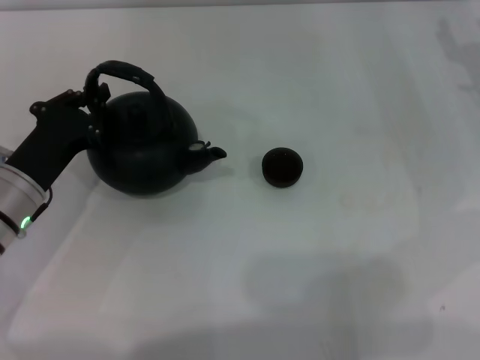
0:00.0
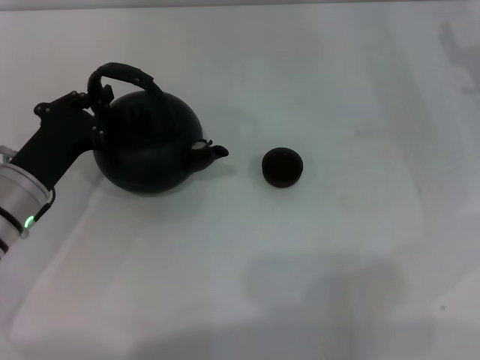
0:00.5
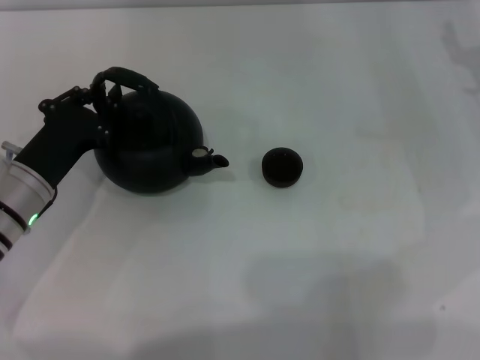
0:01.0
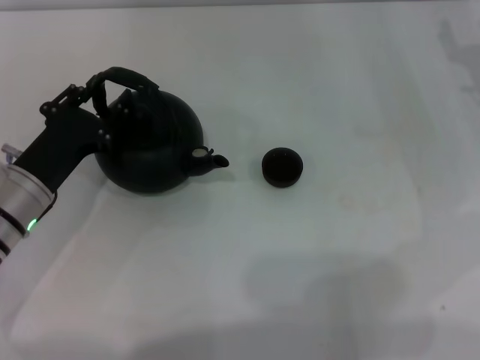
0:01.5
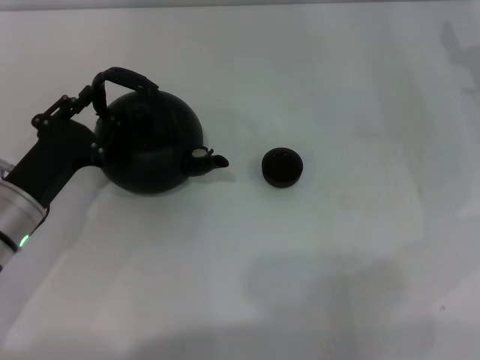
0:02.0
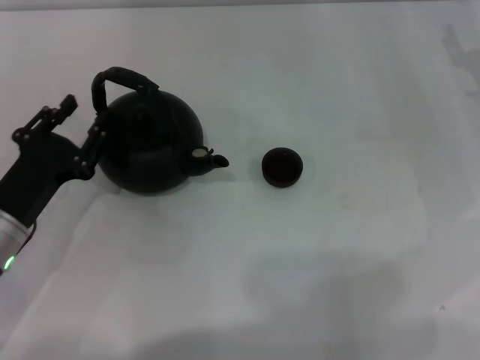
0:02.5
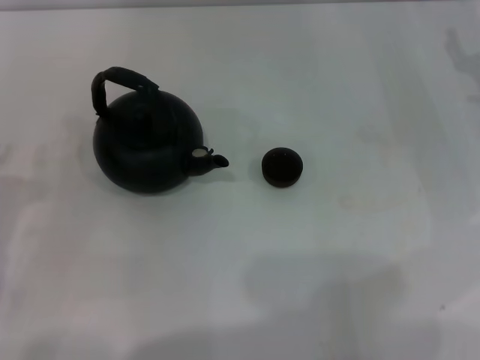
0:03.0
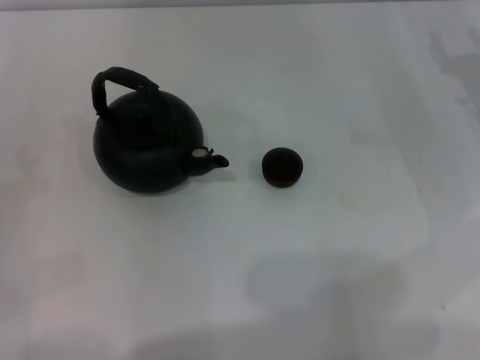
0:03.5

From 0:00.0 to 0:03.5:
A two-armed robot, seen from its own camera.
Task of the whole recording: Grasp the handle of the teapot with one hand and pour tea into the teacup.
Step, from 0:00.0 to 0:02.5: Put down the teapot with the left gripper.
From 0:00.0 to 0:02.0: The left gripper opens.
From 0:02.0 to 0:03.5: The left gripper is displaced to the left and backward by approximately 10 cm.

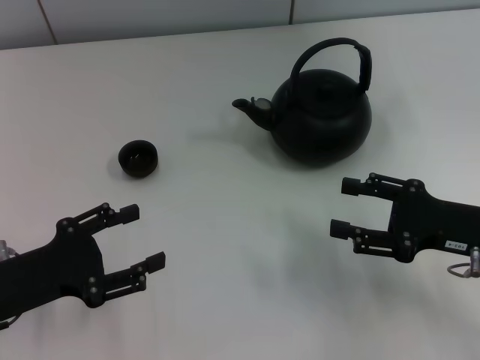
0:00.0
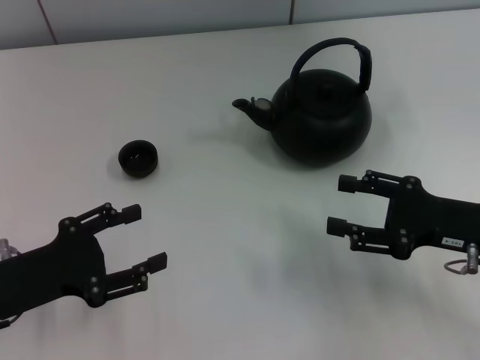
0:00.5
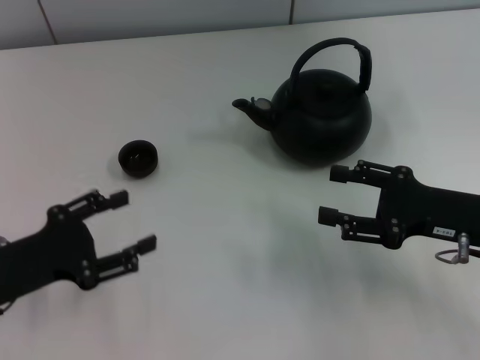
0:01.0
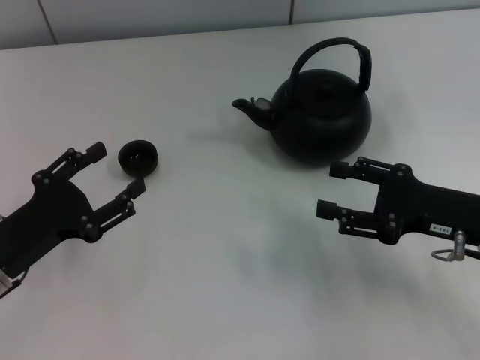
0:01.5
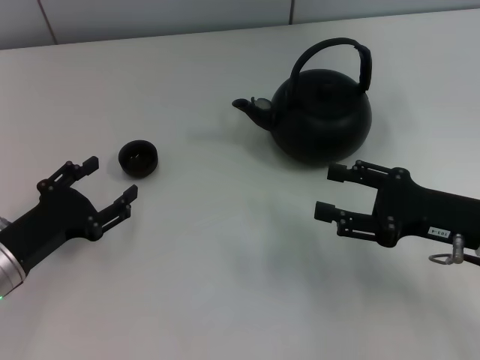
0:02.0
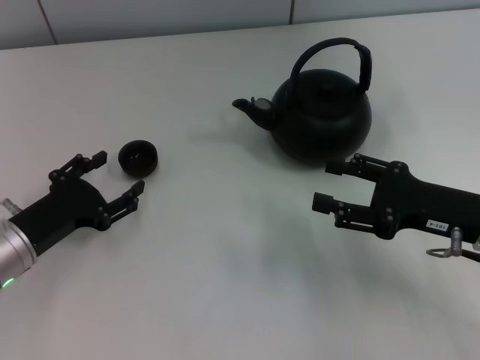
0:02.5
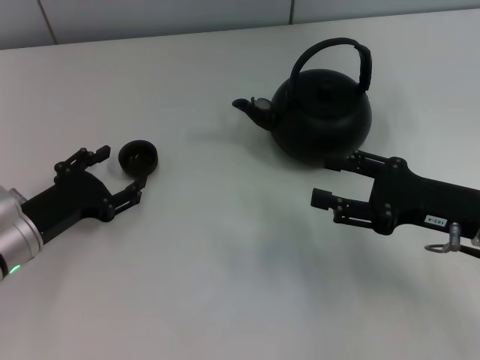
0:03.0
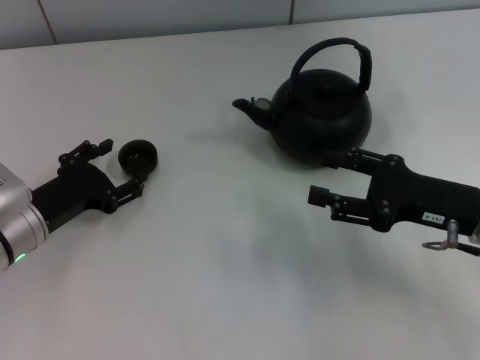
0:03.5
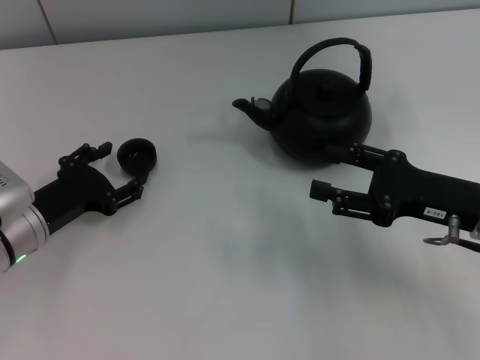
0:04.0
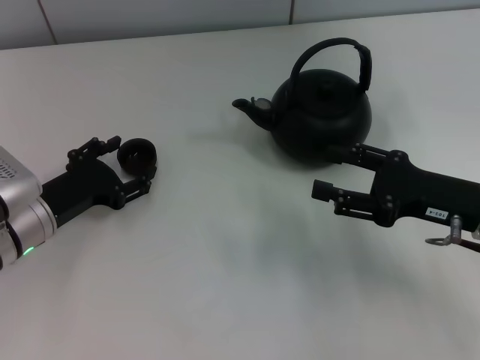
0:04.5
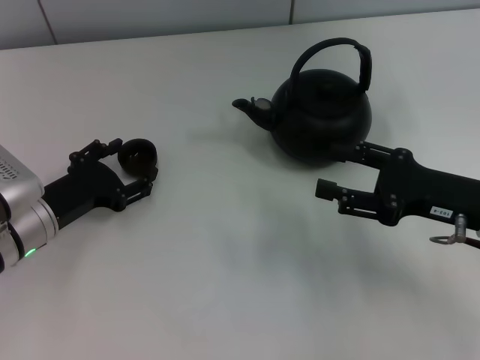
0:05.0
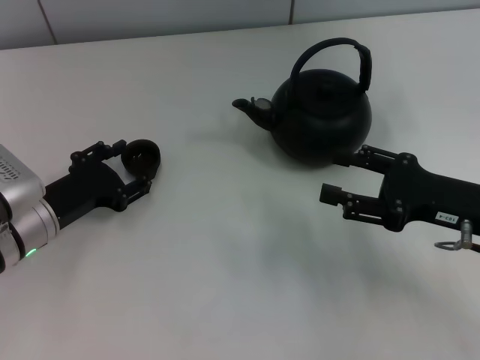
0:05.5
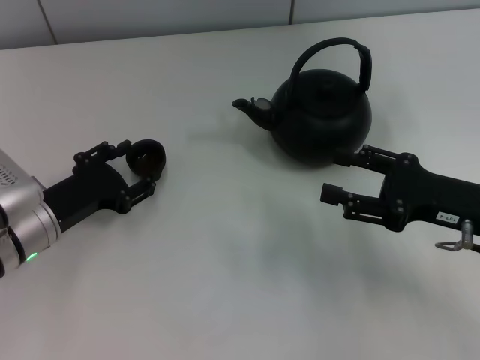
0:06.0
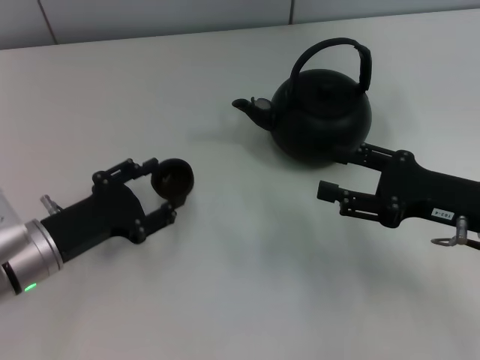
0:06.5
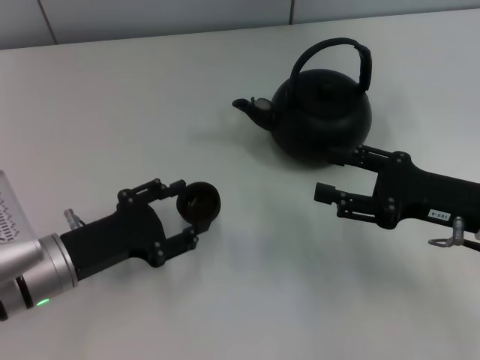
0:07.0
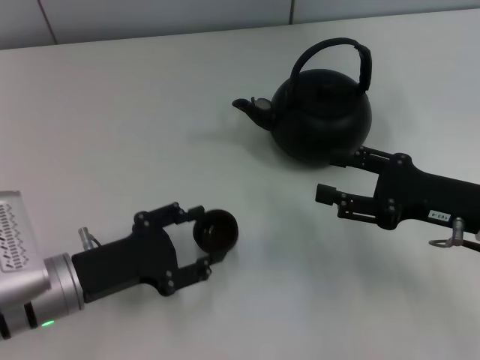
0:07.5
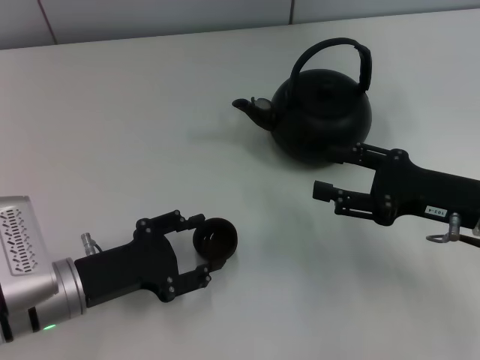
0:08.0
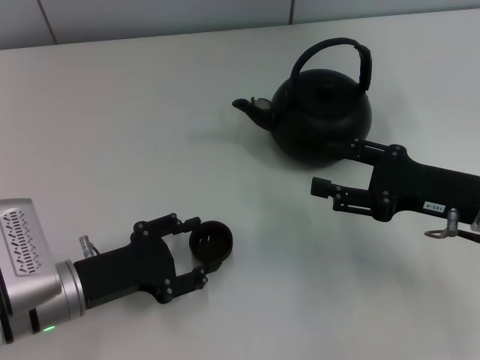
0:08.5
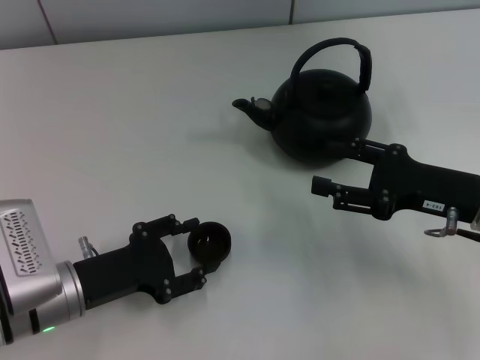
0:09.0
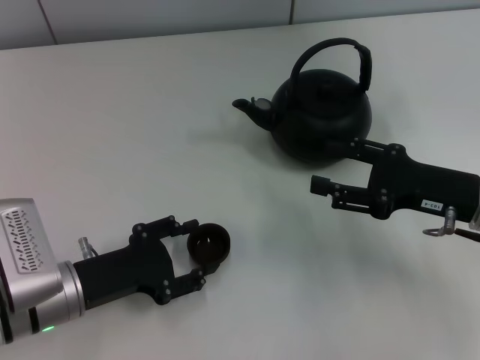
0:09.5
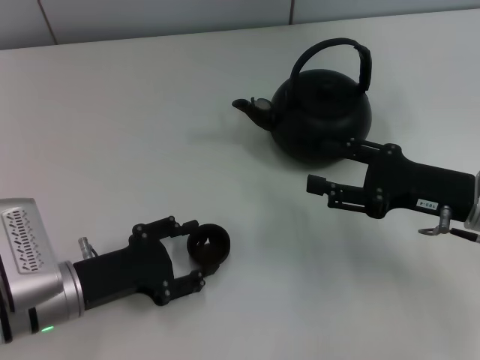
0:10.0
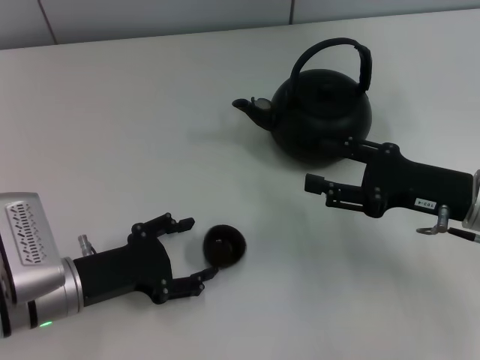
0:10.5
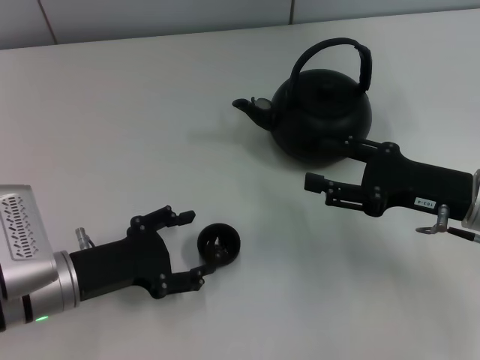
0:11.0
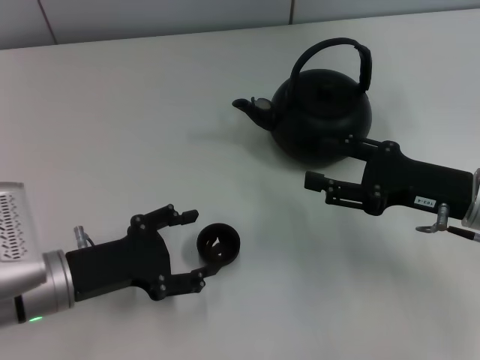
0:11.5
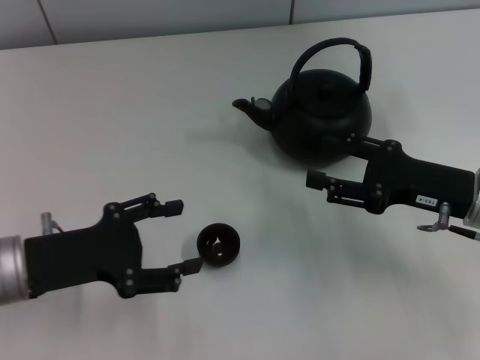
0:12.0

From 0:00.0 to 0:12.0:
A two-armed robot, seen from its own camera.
Task of the whole recording: Grasp the handle of the teapot with one hand and pour tea into the teacup.
Step, from 0:00.0 to 0:06.0: Pick up the teacup with the left gripper.
Step, from 0:06.5 to 0:11.5: Place the teacup in the center of view with the left gripper.
From 0:00.0 to 0:02.0: The left gripper changes place by some 5 cm.
From 0:02.0 to 0:04.0: The grippers make only small movements.
From 0:04.0 to 0:06.0: The left gripper closes up.
From 0:06.0 to 0:08.0: The left gripper goes some 5 cm backward.
From 0:08.0 to 0:10.0: Both grippers stay put.
From 0:10.0 to 0:12.0: The left gripper is displaced upward by roughly 5 cm, and opens up.

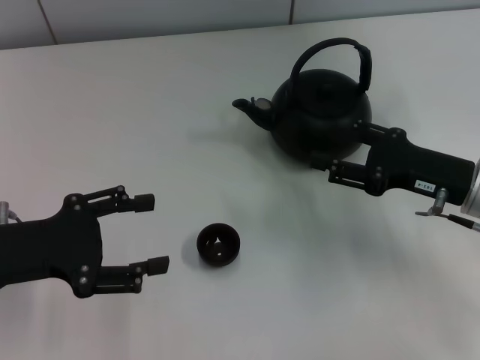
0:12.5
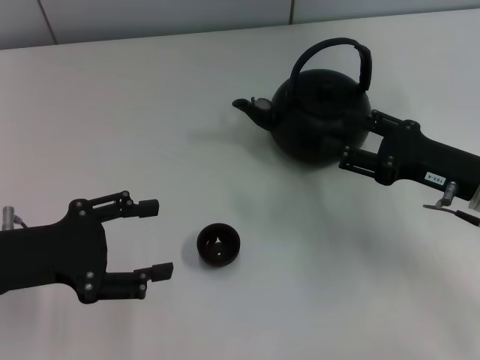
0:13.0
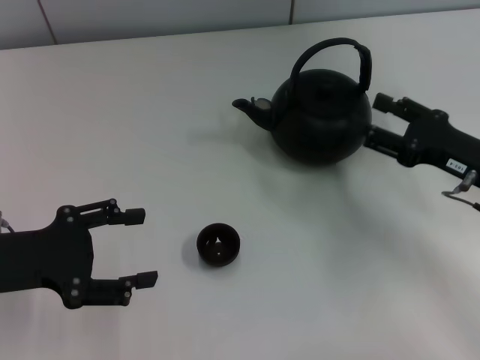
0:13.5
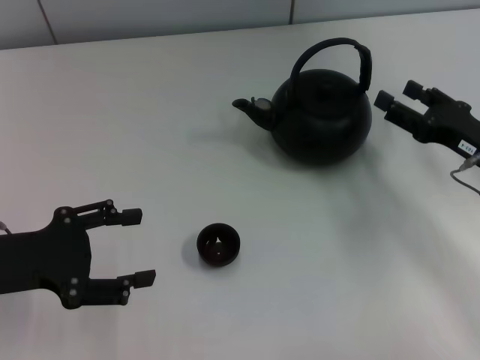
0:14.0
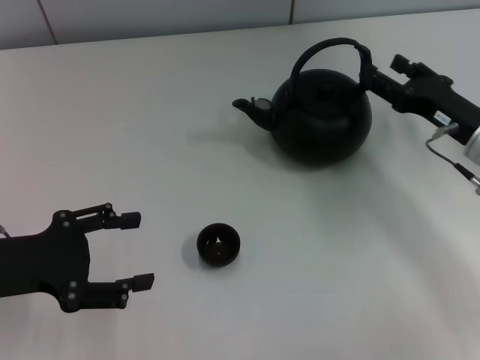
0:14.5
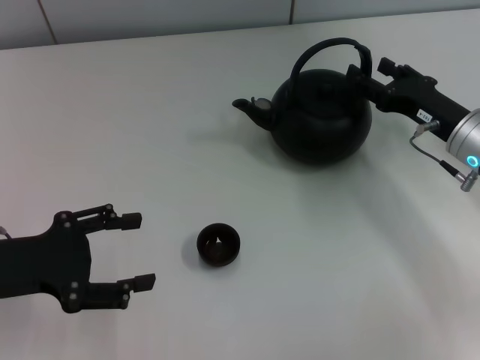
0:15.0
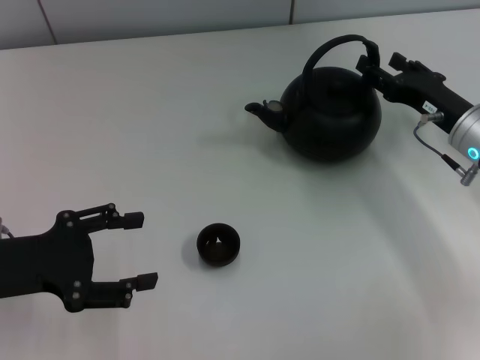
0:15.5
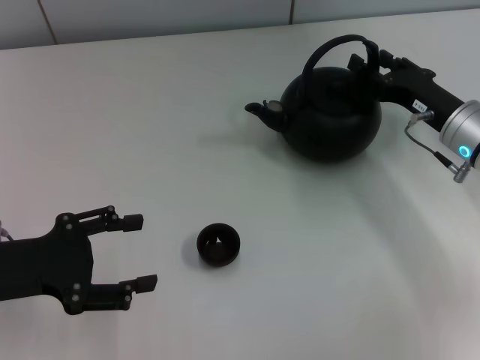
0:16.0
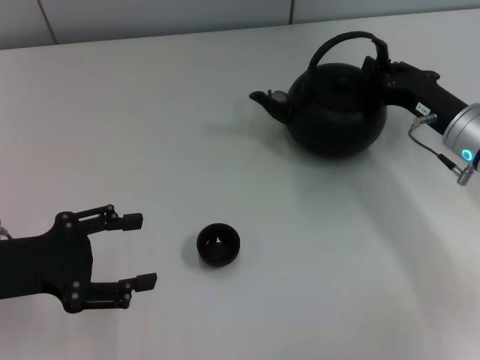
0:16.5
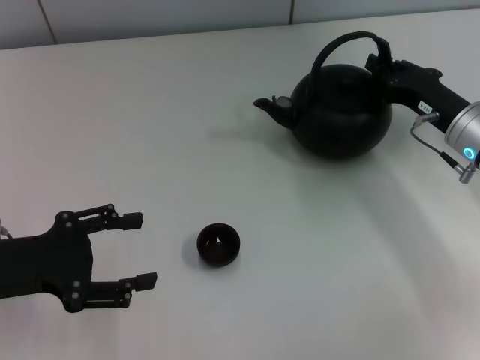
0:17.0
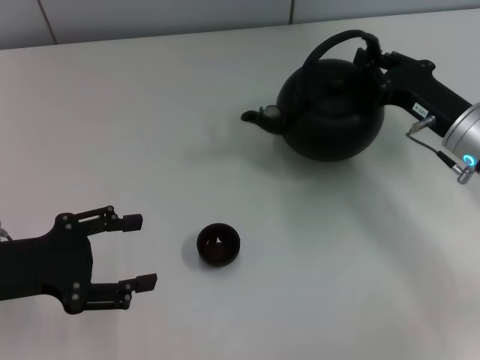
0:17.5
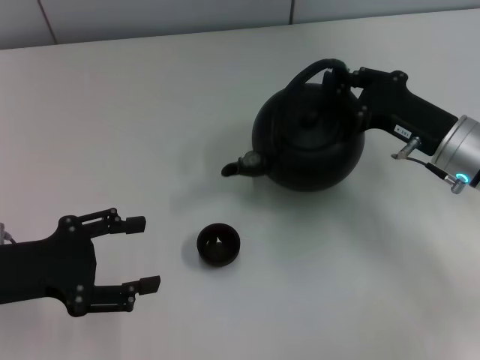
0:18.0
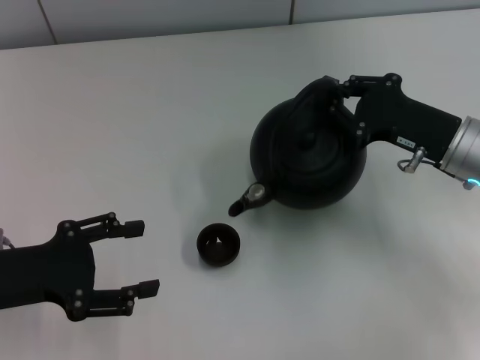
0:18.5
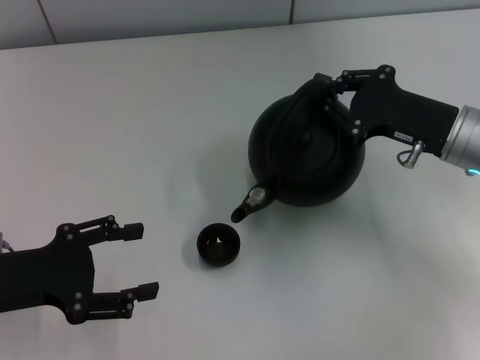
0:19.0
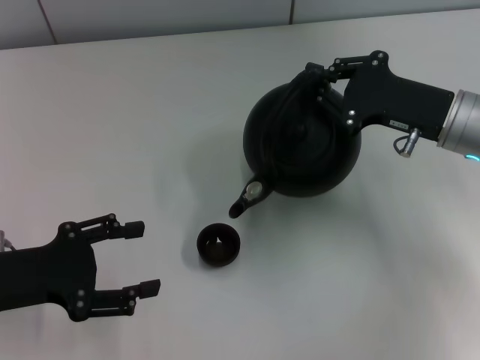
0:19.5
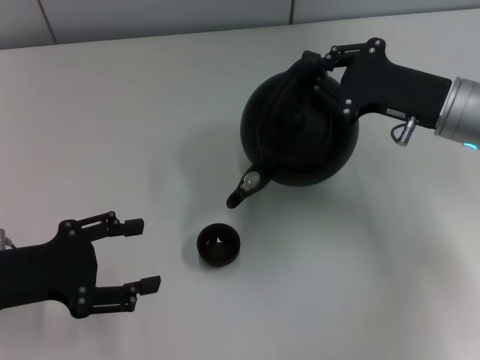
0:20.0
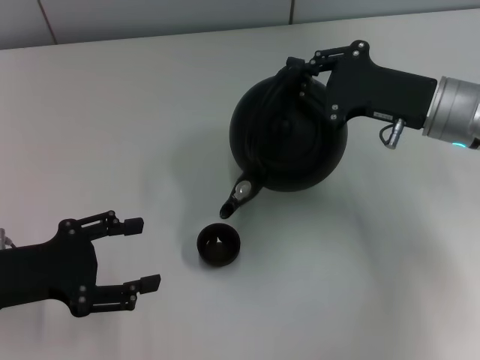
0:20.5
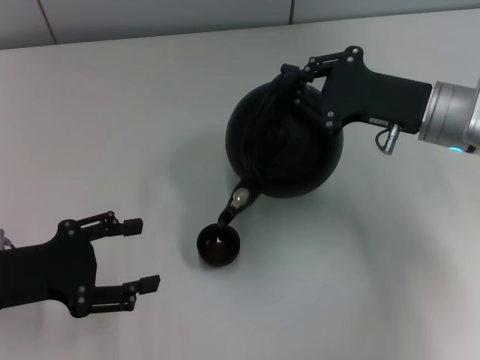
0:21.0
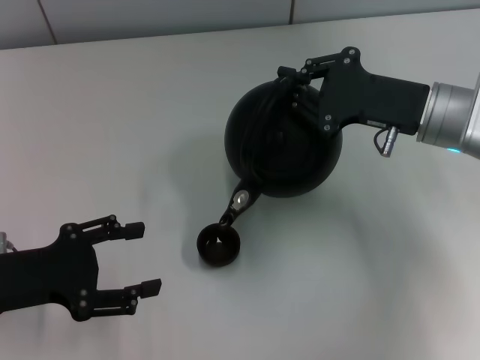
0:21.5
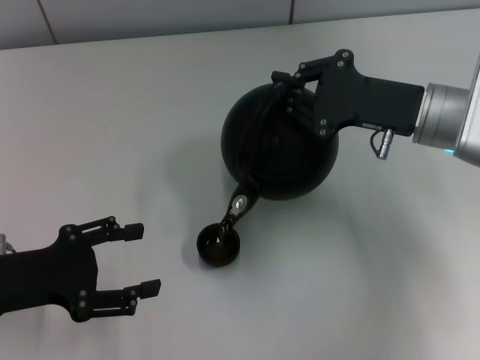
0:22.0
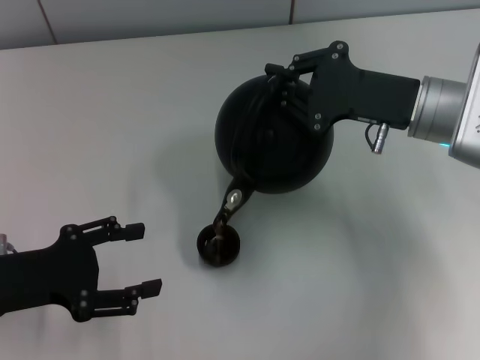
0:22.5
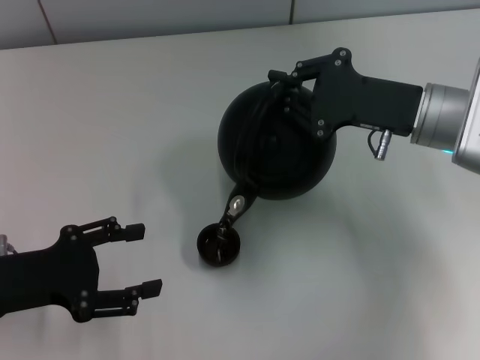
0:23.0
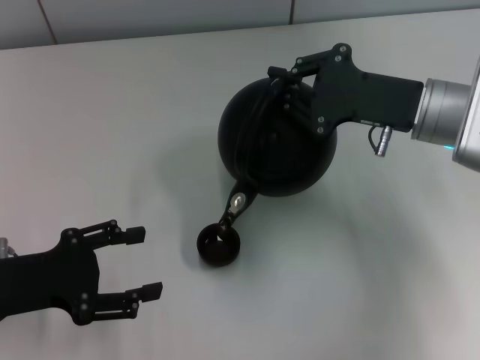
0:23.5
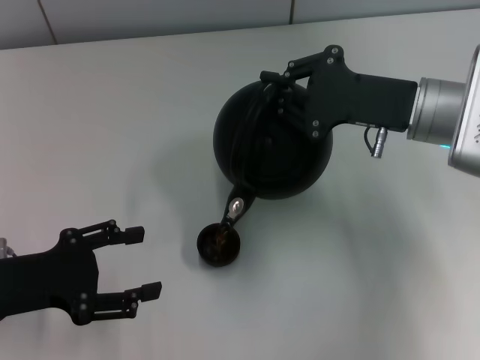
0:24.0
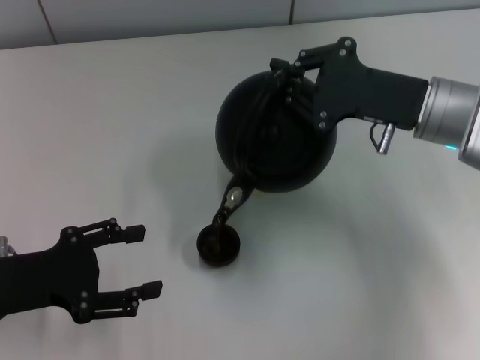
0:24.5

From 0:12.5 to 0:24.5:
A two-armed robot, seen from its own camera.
Task of the whole recording: Grasp the handle of the teapot with one hand and pour tea into the teacup.
Step, from 0:12.5 to 0:17.5: Pick up the teapot with the right gripper.
From 0:14.5 to 0:16.5: The right gripper closes its fingers.
From 0:18.5 to 0:20.5: The grippers make only small movements.
From 0:20.5 to 0:22.5: The grippers move only a little.
From 0:22.5 to 0:24.5: Both grippers stay about where they are.
